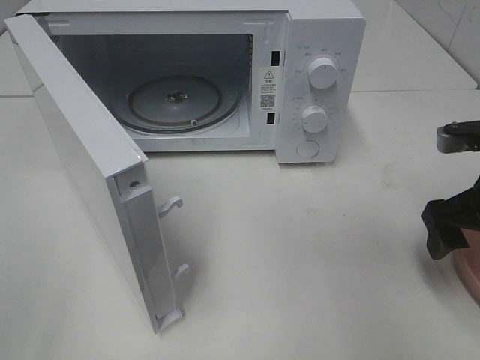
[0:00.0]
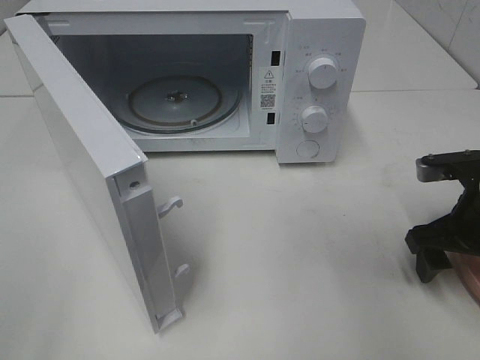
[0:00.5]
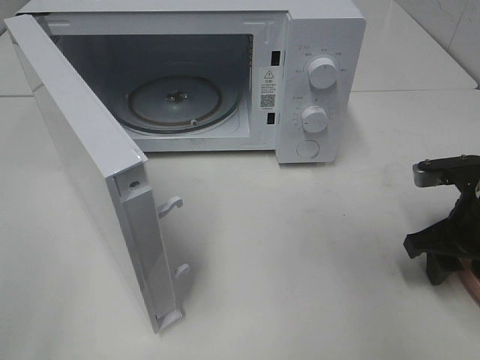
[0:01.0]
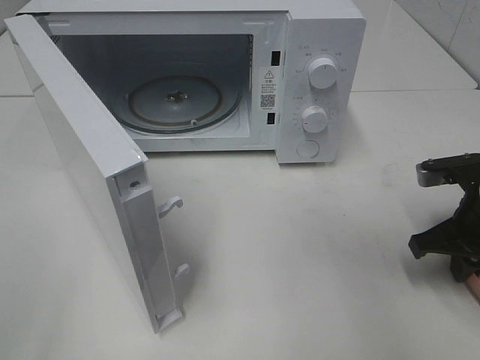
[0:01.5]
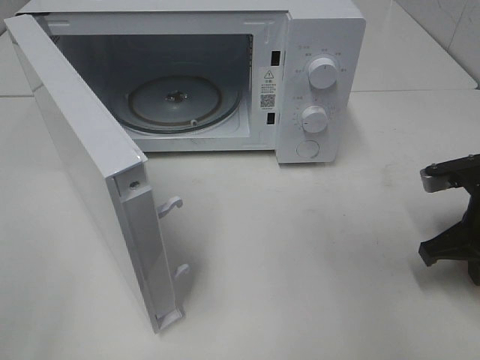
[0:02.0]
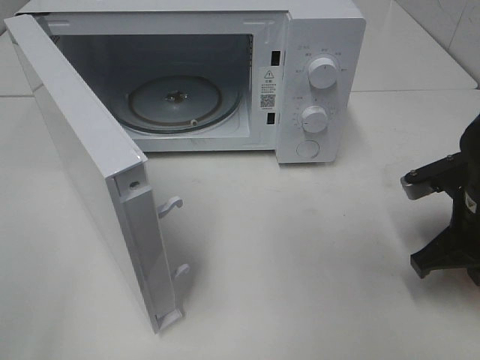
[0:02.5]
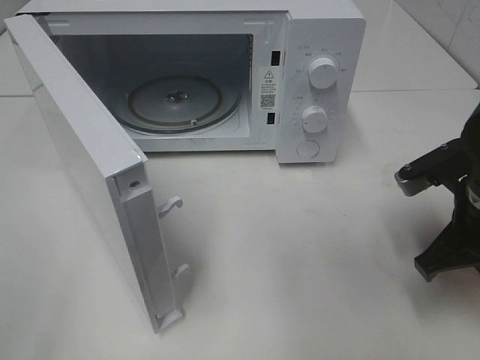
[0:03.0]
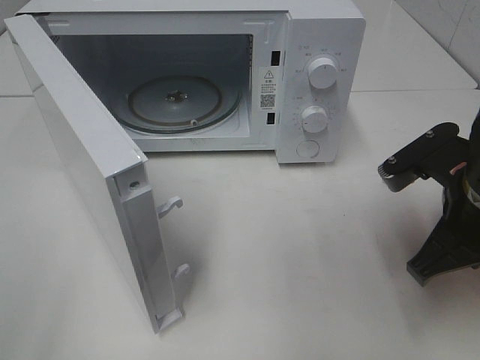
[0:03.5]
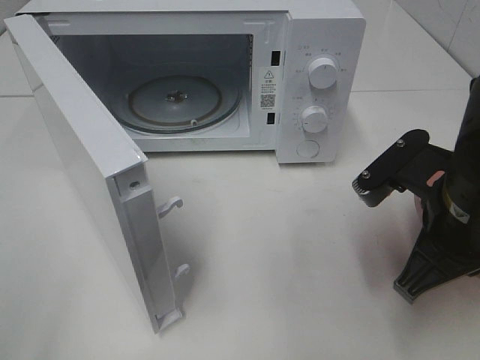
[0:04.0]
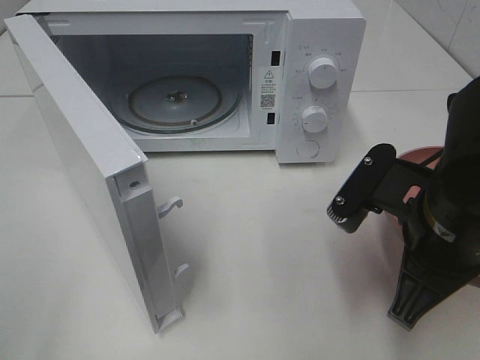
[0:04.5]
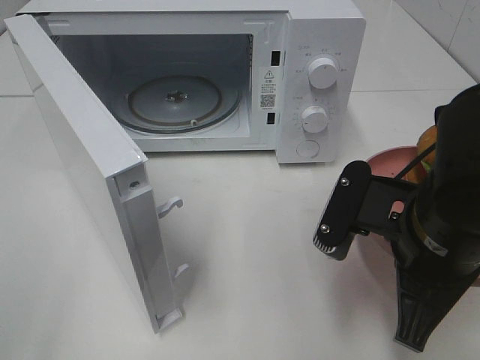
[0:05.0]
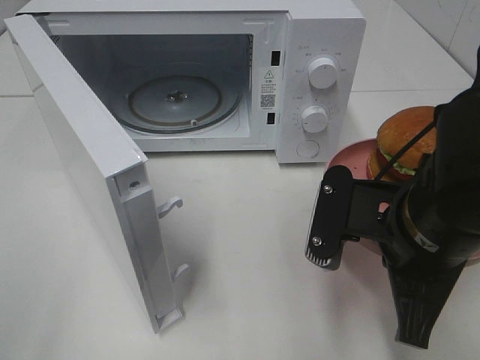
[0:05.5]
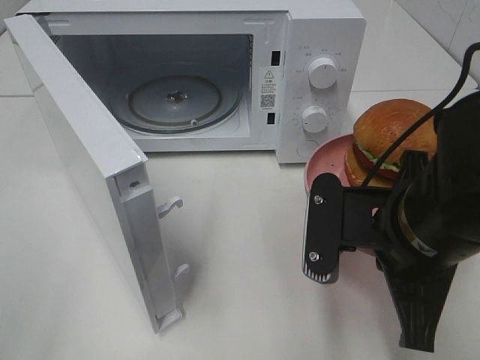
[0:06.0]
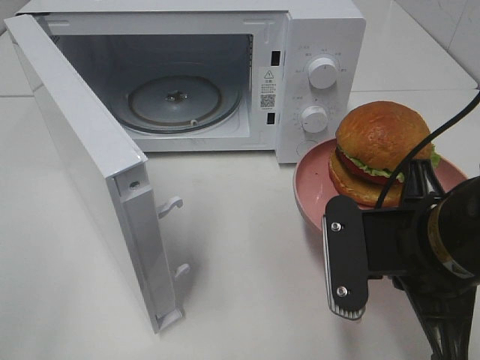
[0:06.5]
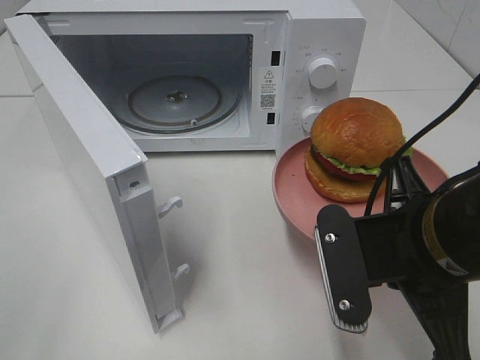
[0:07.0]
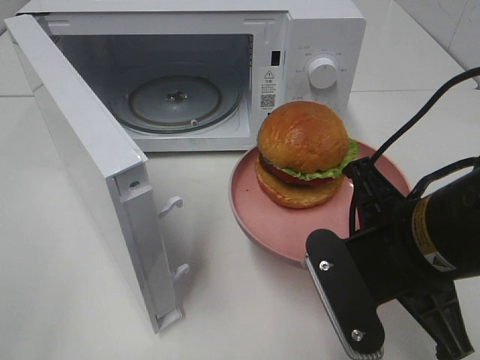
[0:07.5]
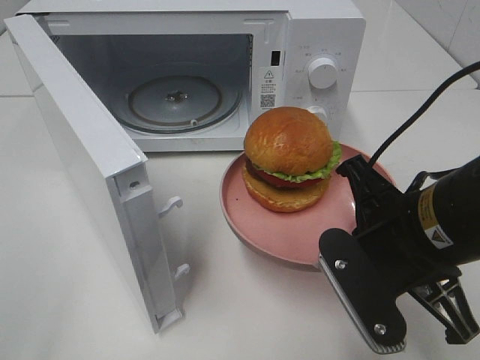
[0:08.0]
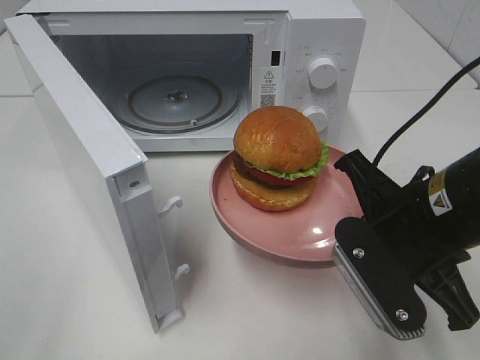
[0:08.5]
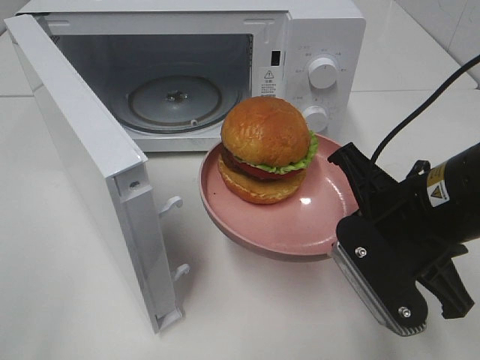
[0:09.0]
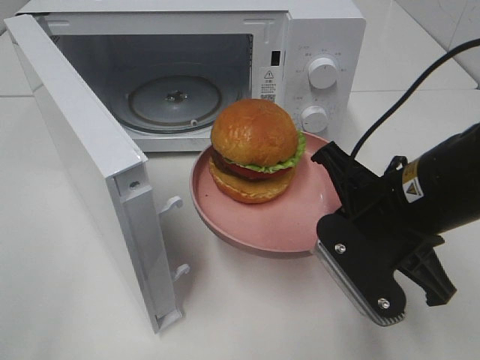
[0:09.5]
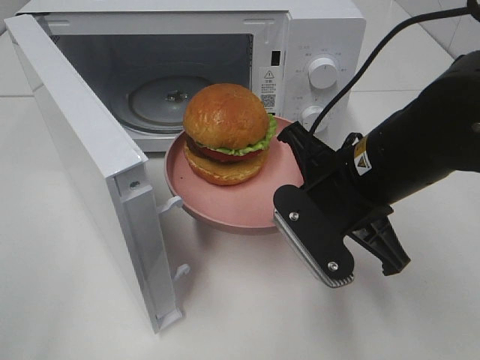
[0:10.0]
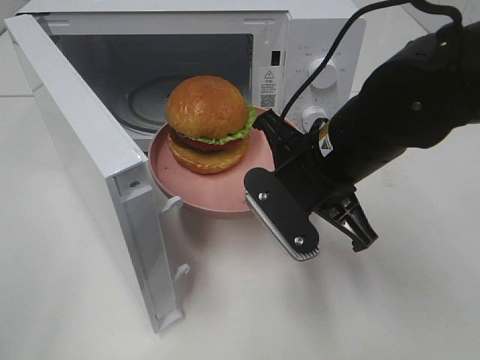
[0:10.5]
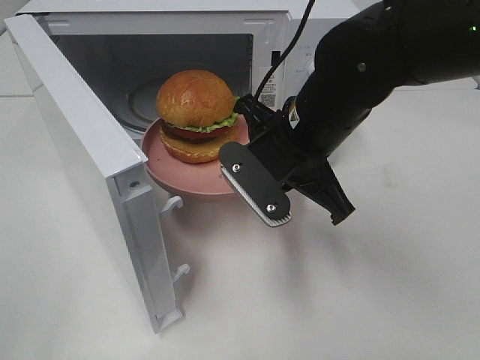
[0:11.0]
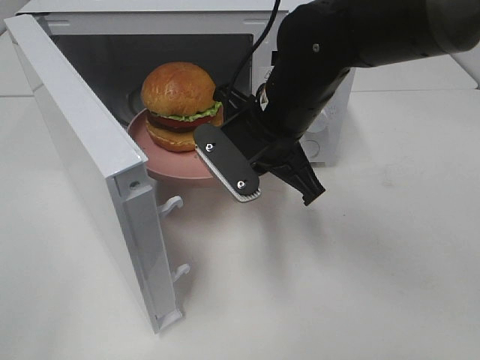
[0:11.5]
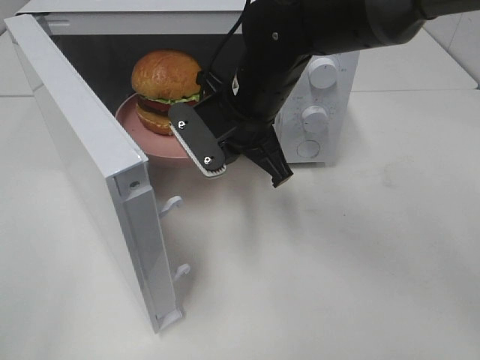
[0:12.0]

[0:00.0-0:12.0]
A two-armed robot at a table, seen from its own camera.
Task of the whole recording: Heat the burger.
0:00.0 to 0:02.0: The right gripper closes its fingers.
0:02.0 to 0:04.0: The right gripper heads to the left, upward and backward, covering about 15 cm.
0:04.0 to 0:06.0: The right gripper changes place by some 5 cm.
0:08.0 to 0:10.0: The right gripper goes about 5 cm forward.
0:10.0 to 0:12.0: The right gripper is displaced forward and to the left by approximately 15 cm.

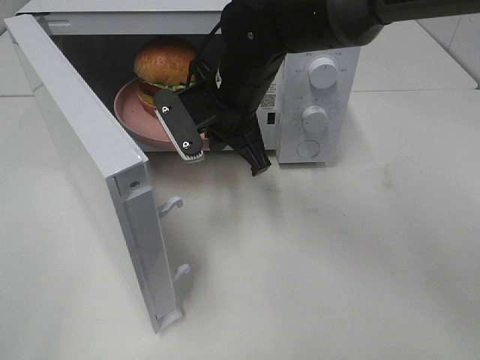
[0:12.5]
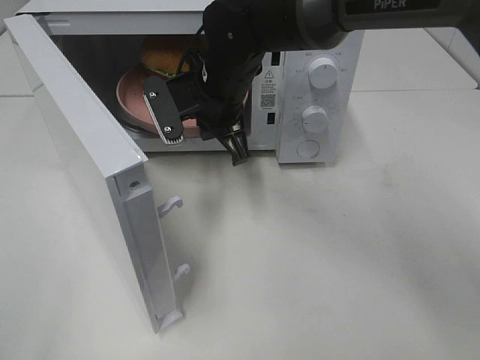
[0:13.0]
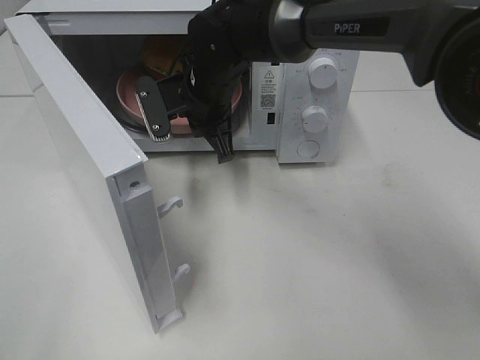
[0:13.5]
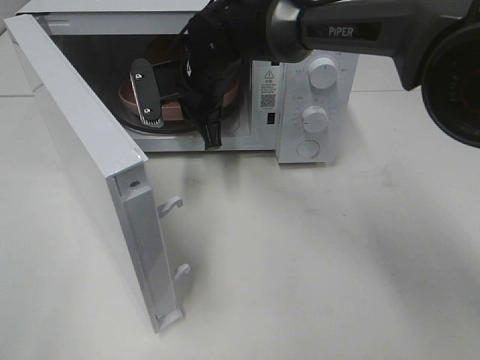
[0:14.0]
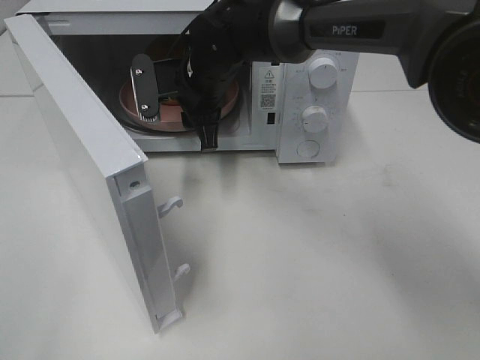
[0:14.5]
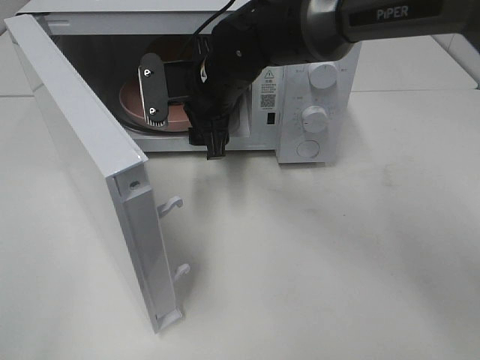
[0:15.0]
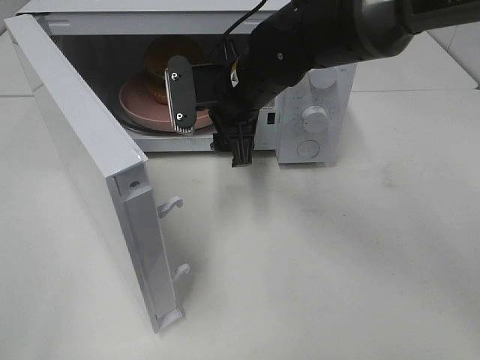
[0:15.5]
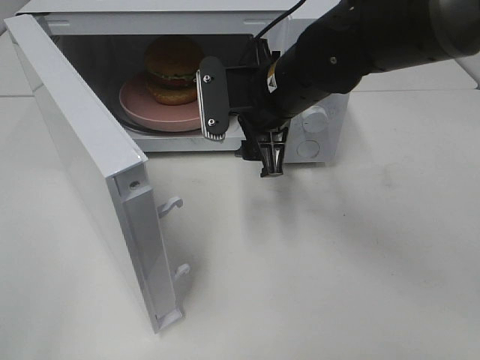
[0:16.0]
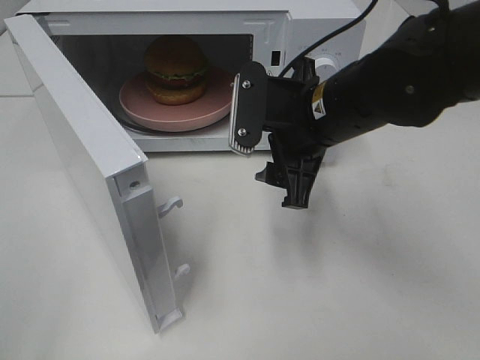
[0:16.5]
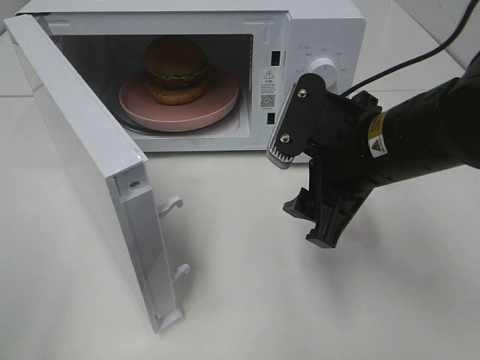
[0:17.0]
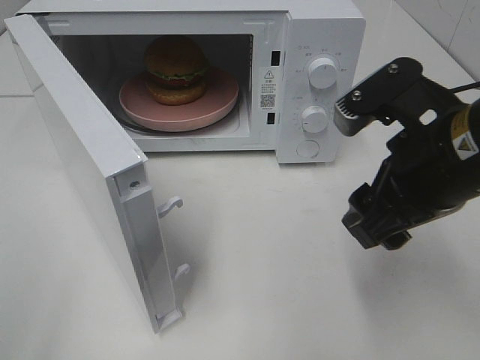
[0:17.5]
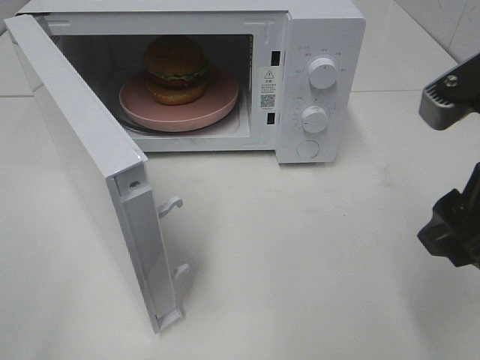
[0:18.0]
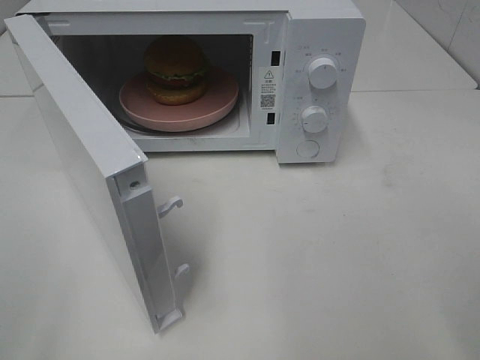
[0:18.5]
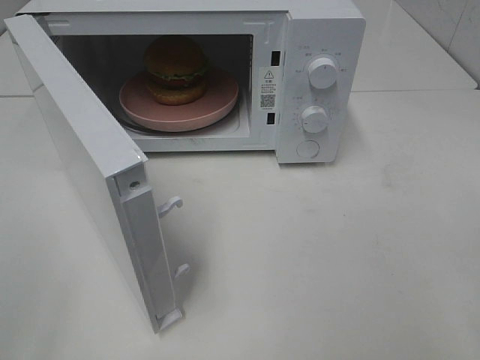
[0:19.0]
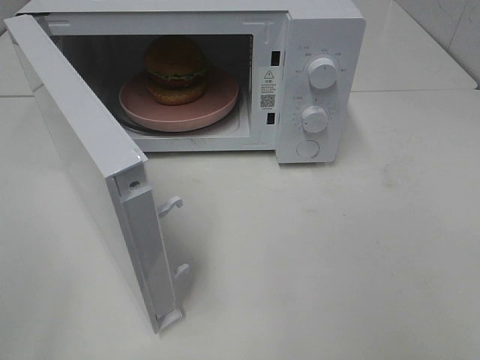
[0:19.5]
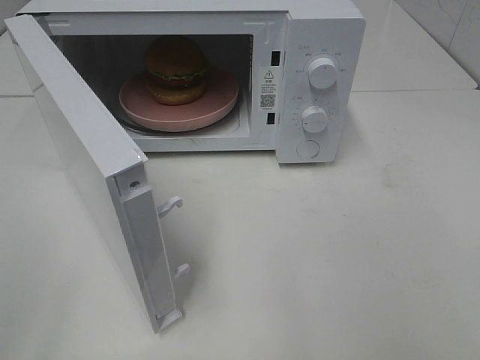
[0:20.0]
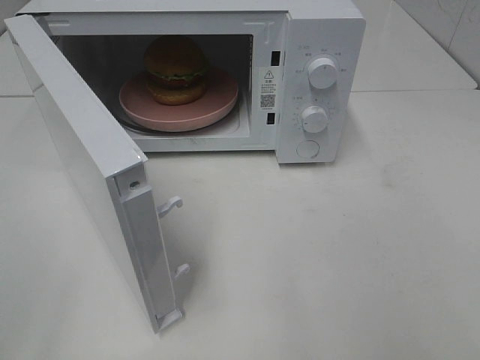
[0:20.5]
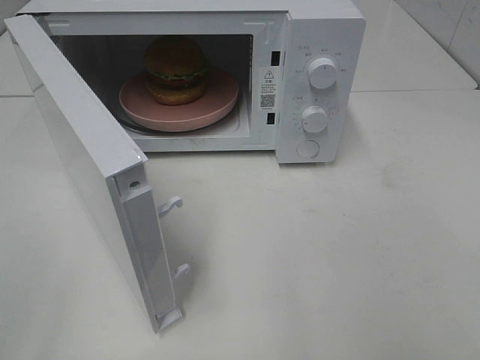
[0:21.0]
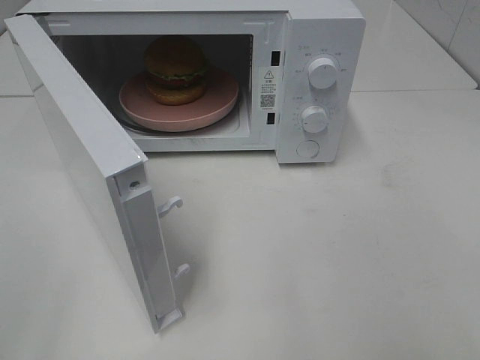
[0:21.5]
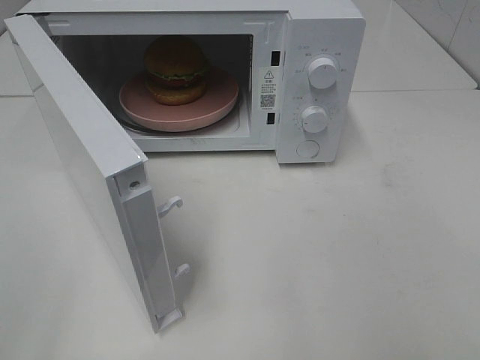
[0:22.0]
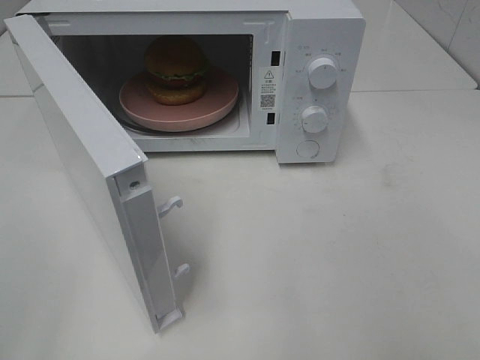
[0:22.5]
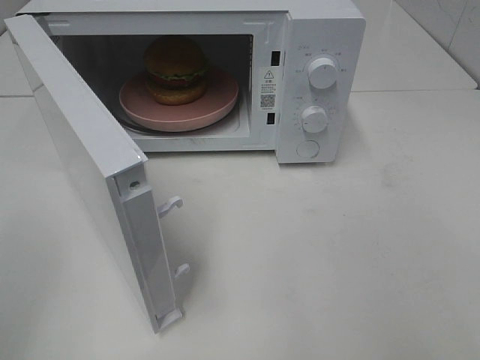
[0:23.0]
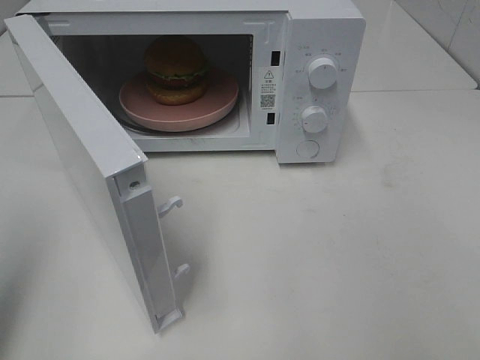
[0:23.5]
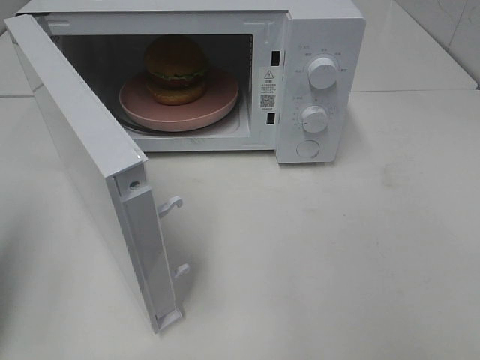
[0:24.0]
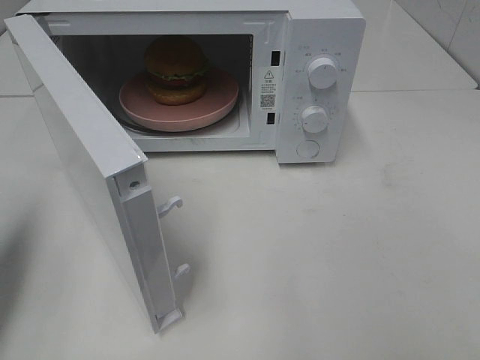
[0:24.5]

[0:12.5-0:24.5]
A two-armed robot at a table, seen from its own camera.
Task of the whole recording: Heat the burger.
0:12.5 to 0:14.5: The right gripper goes some 5 cm forward, and opens.
0:14.5 to 0:16.5: The right gripper goes about 20 cm backward and to the right.
0:16.5 to 0:18.5: The right gripper heads backward, to the right and upward, covering about 25 cm.
0:20.5 to 0:22.5: Both grippers stay about where they are.
0:22.5 to 0:24.5: The left gripper moves forward, roughly 20 cm, and closes.

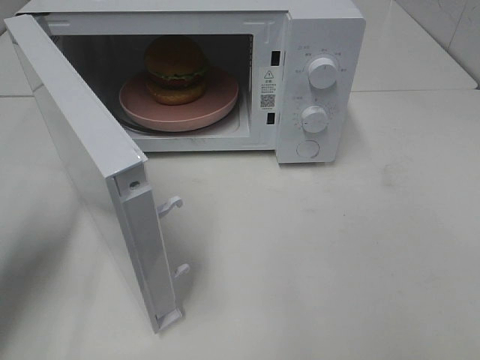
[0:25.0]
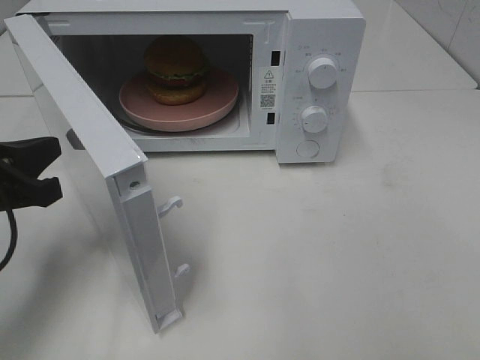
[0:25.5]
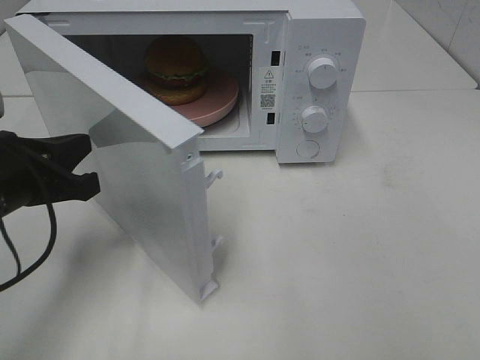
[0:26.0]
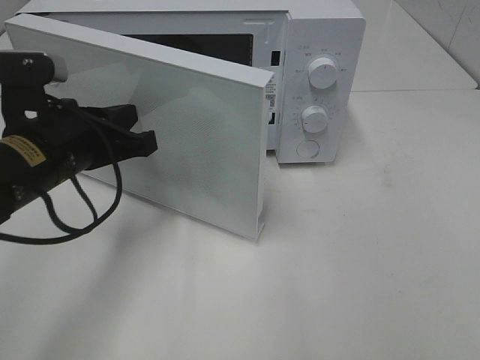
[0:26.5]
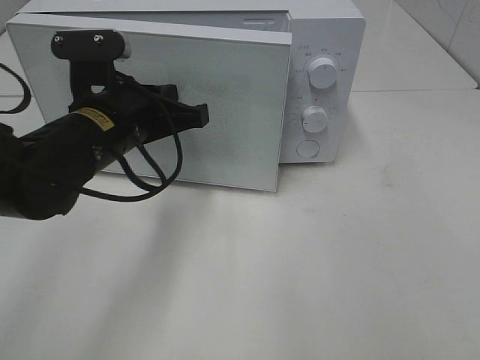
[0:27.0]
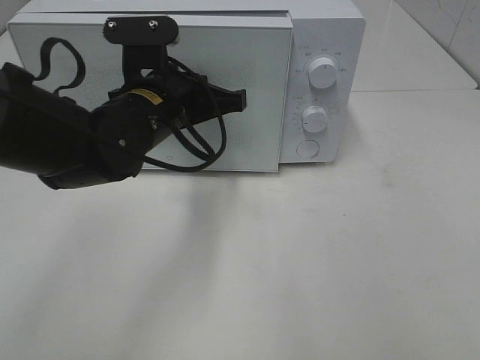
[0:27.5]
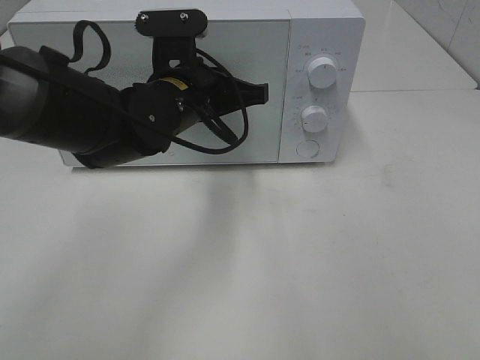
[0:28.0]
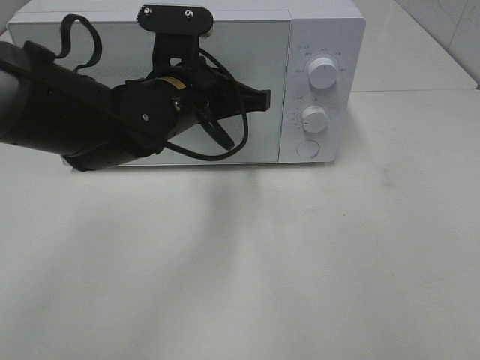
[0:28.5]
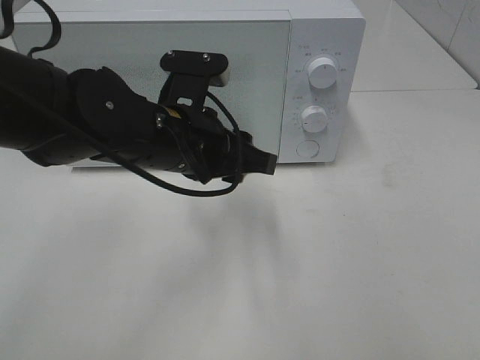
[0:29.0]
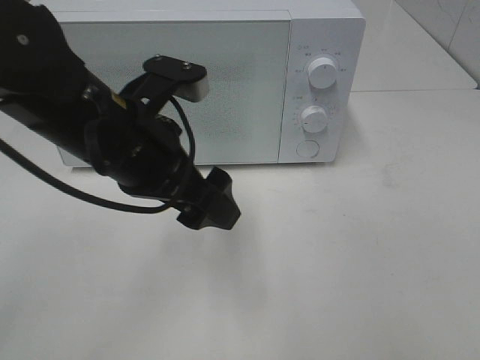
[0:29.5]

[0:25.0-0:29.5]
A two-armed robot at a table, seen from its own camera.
Task of the whole recording: Heat the burger.
Step, 0:25.0 to 0:28.5: Left hand: close the microwave door.
0:25.0 to 0:27.0: The left gripper travels to the right and forward by some 20 cm.
0:27.0 to 0:29.5: The left gripper shifts by about 5 cm, and opens up.
